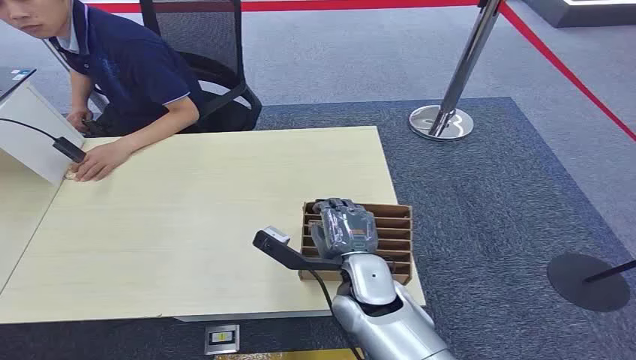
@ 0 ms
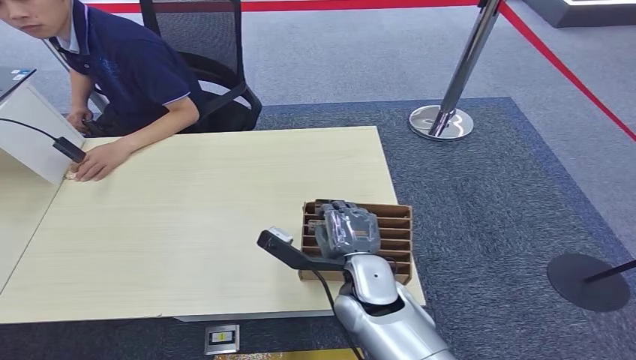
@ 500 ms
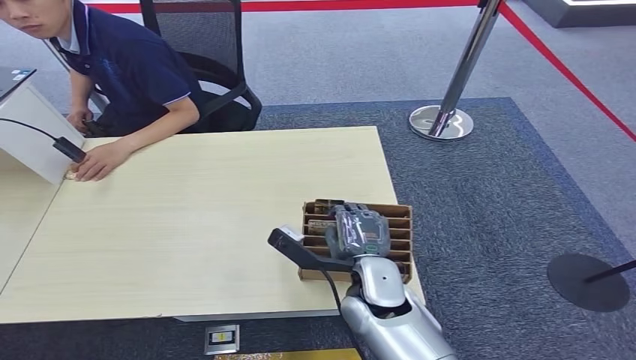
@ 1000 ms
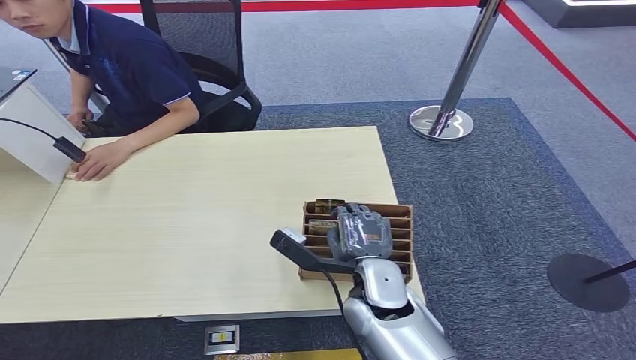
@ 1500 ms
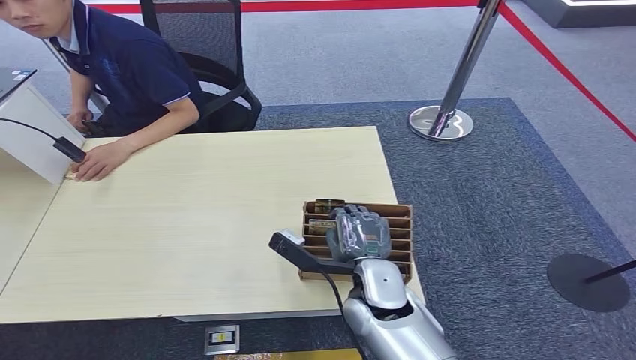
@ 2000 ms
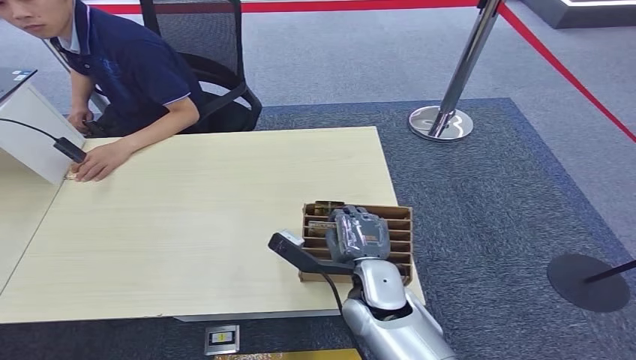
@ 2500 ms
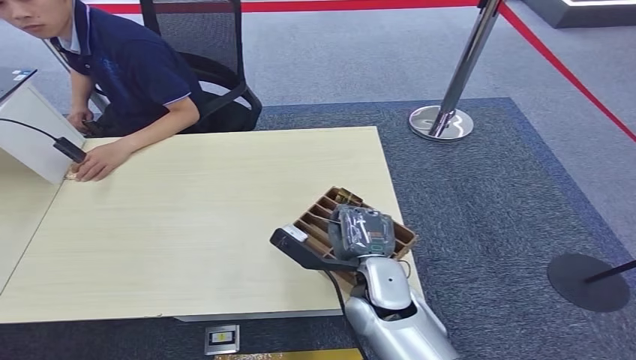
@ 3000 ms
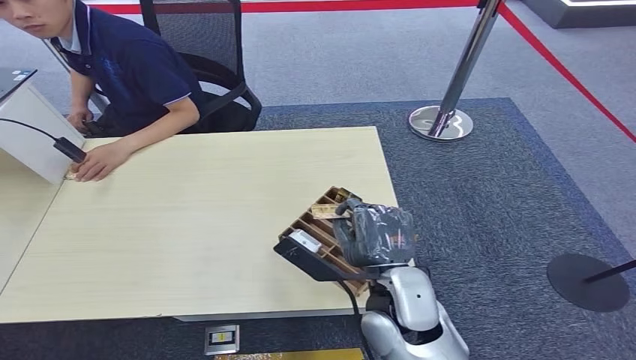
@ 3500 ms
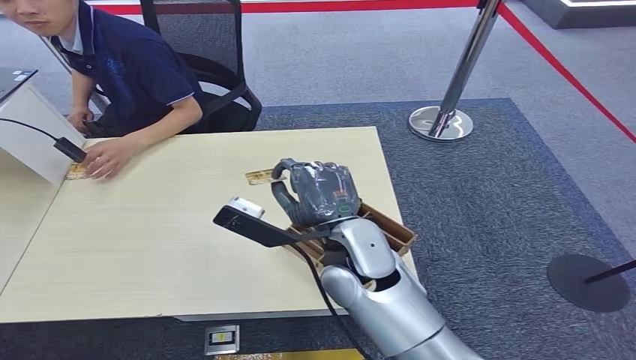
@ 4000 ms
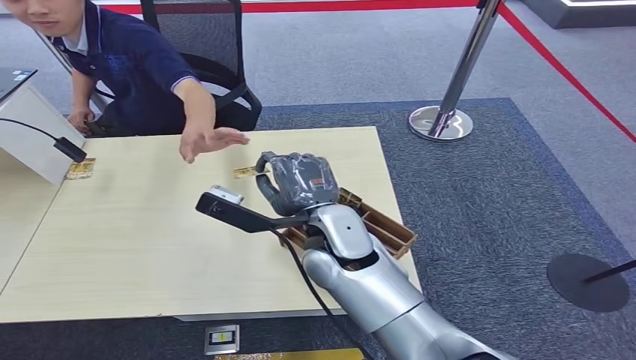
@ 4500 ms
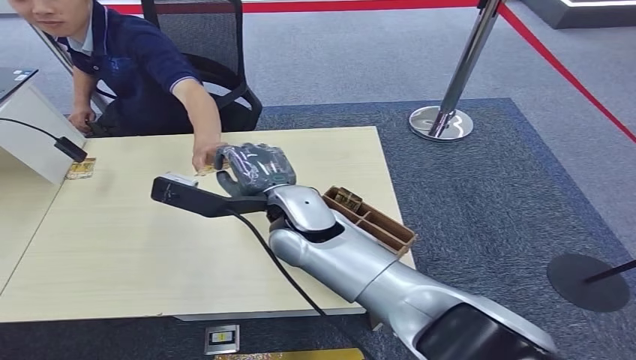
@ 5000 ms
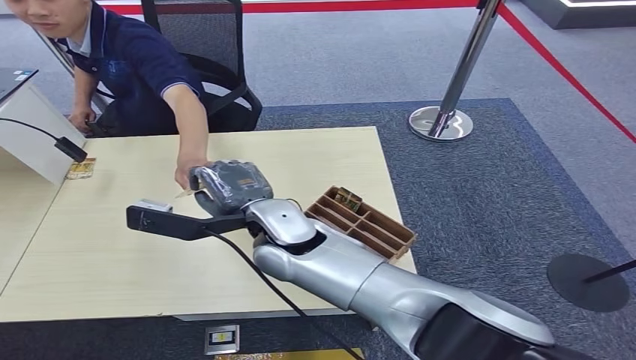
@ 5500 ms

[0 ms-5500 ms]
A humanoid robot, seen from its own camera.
Step, 0 ms to 3500 ms: Pick up the room card from the card holder.
Step, 4000 ms to 5500 ms: Hand the room card to the target.
2000 ms to 3500 ms: The right hand heads upward, covering roughly 5 cm.
3500 ms to 5500 ms: The right hand goes roughly 20 cm to the left, forward and upward.

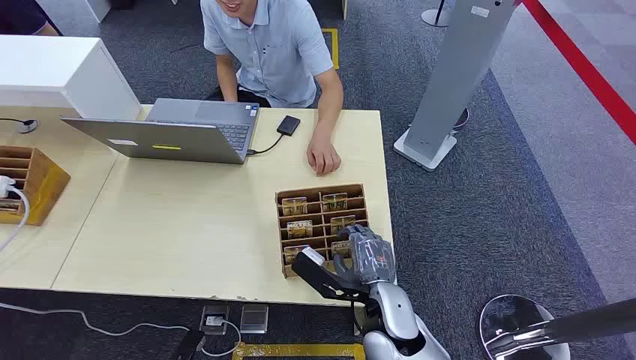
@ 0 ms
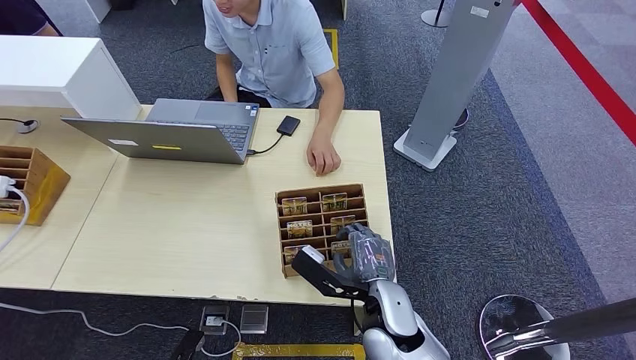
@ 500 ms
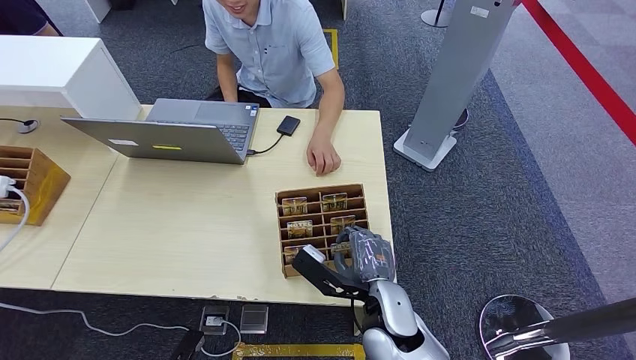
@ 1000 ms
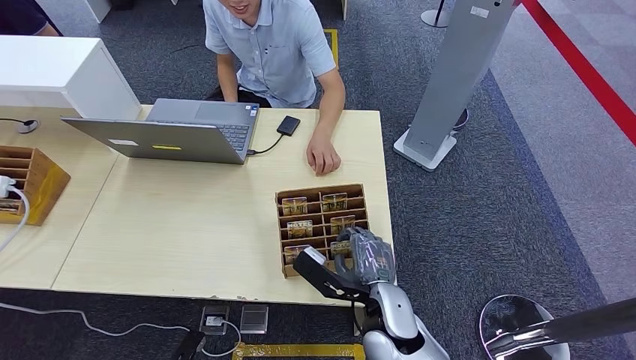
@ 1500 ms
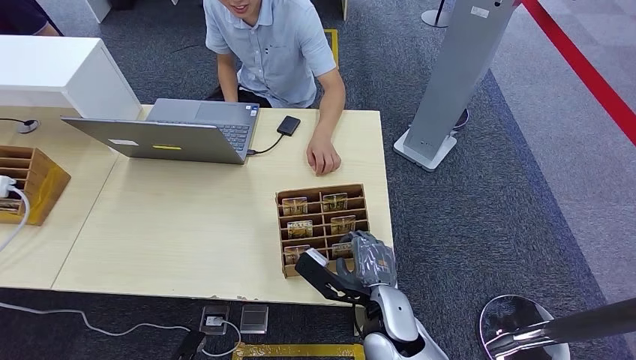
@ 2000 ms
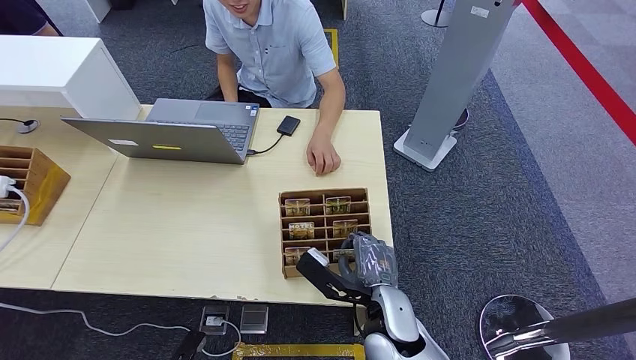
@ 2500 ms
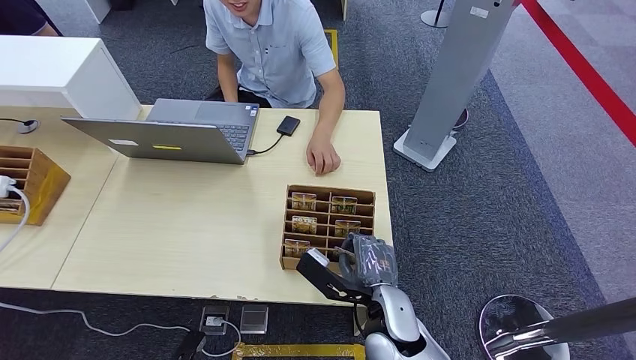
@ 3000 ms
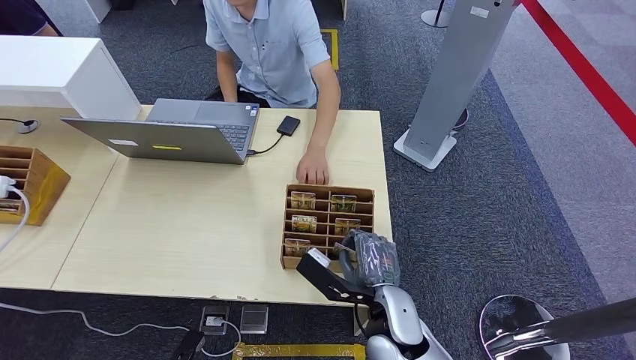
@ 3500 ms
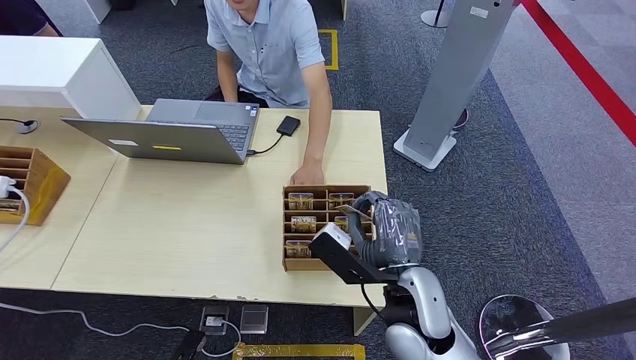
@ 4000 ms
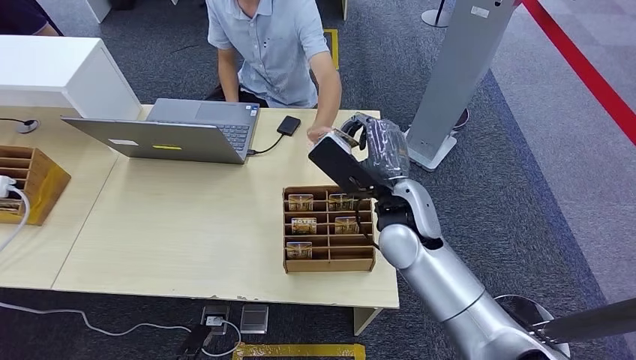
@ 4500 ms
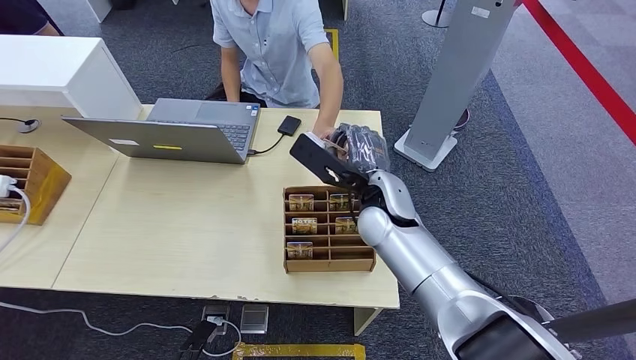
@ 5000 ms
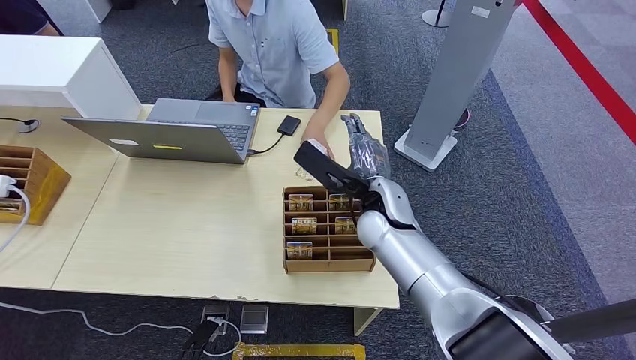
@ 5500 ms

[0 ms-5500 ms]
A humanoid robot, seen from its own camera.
Step, 0 ms to 3500 ms: Pick up the room card from the card holder.
Step, 5000 ms to 5500 ms: Hand the room card to the target.
2000 ms to 3500 ms: There are only small adjustments of the hands.
3500 ms to 5500 ms: The right hand travels forward and upward by roughly 20 cm.
